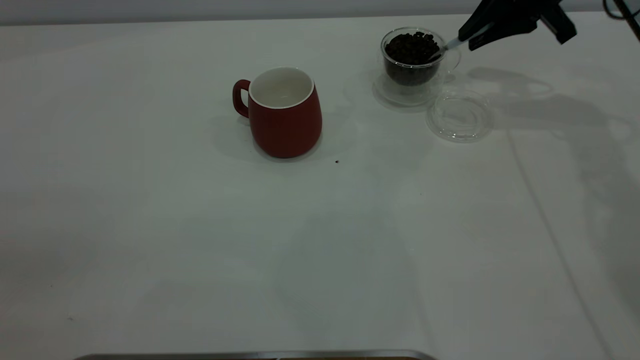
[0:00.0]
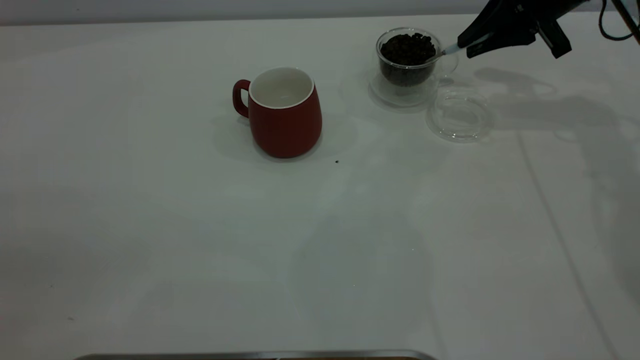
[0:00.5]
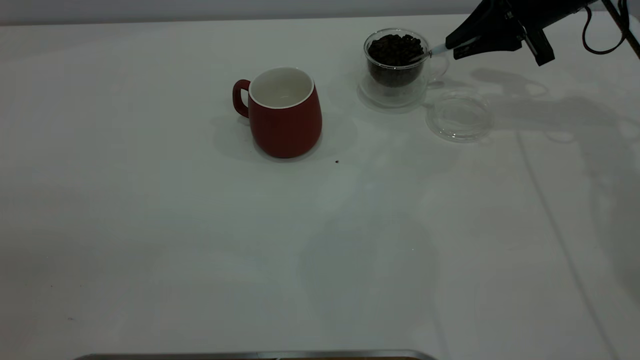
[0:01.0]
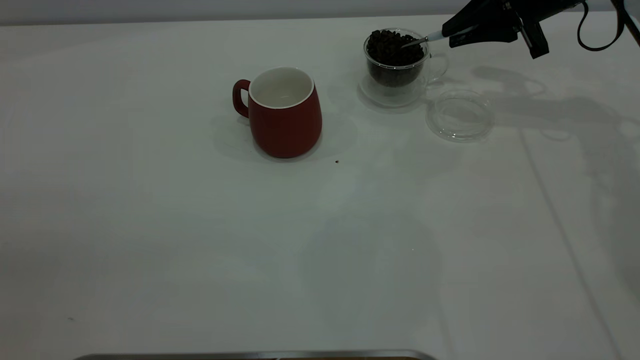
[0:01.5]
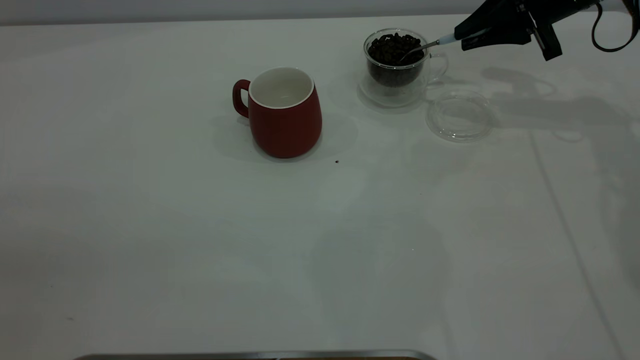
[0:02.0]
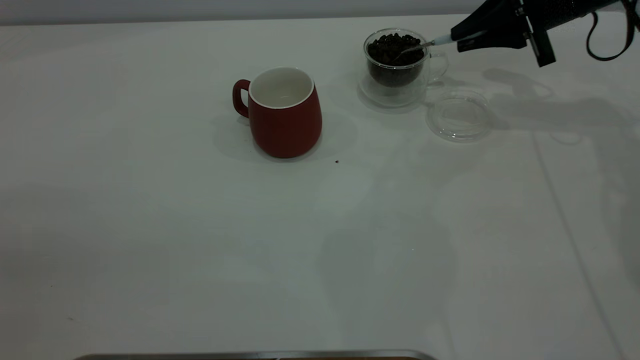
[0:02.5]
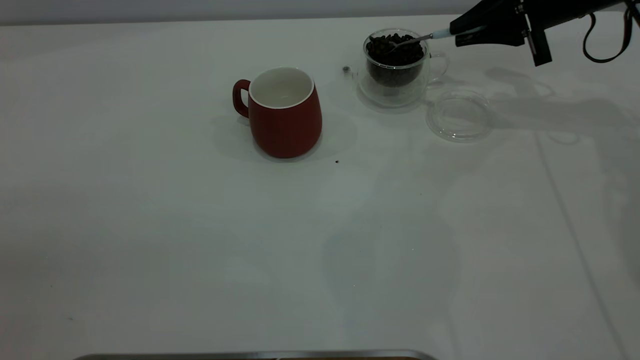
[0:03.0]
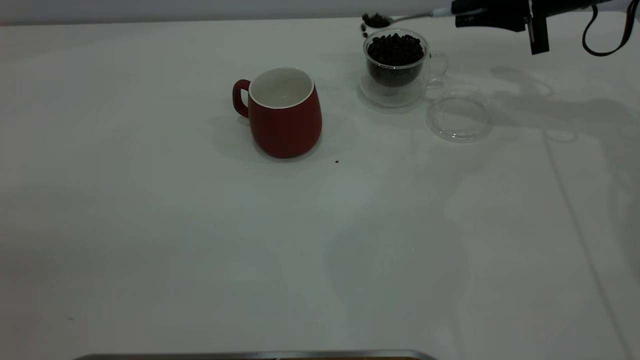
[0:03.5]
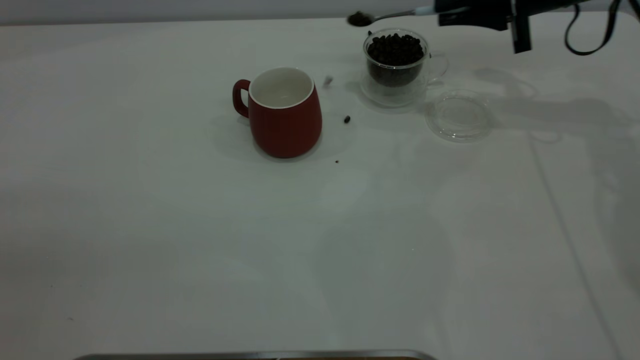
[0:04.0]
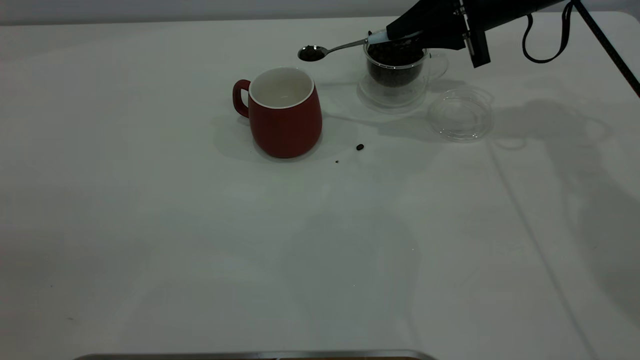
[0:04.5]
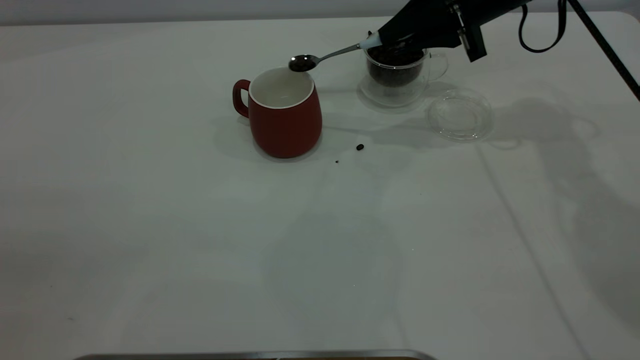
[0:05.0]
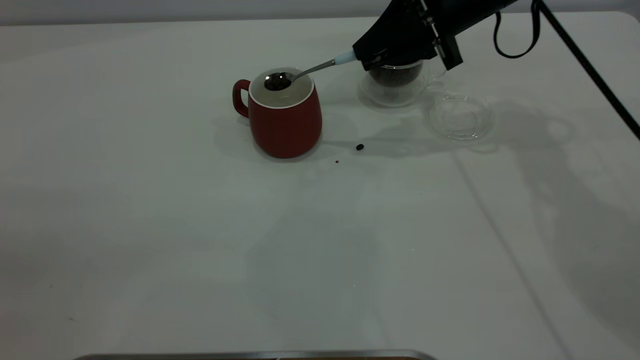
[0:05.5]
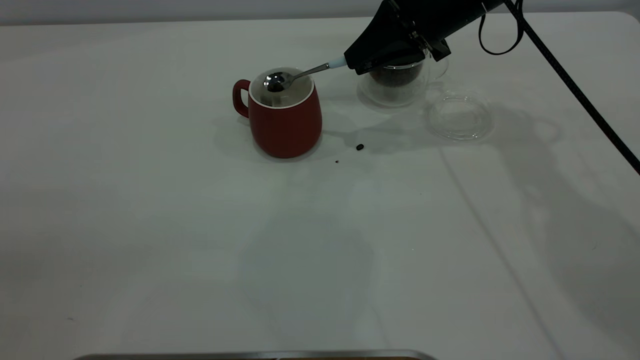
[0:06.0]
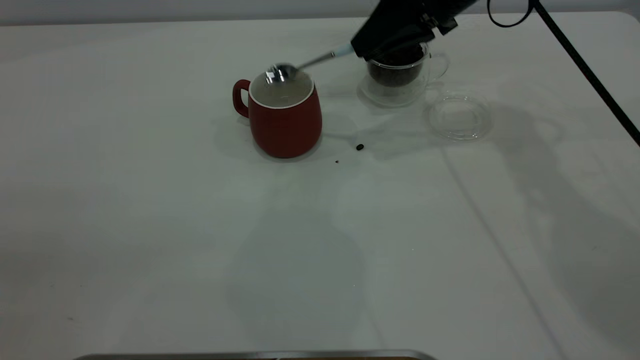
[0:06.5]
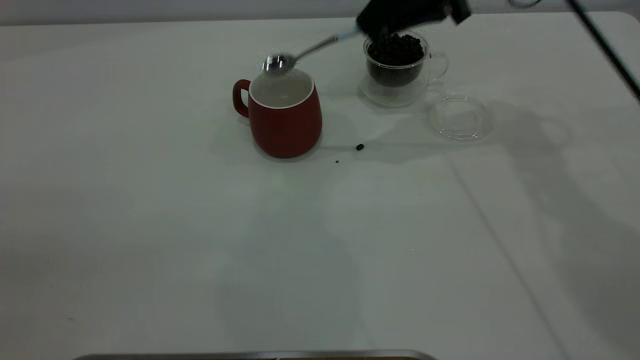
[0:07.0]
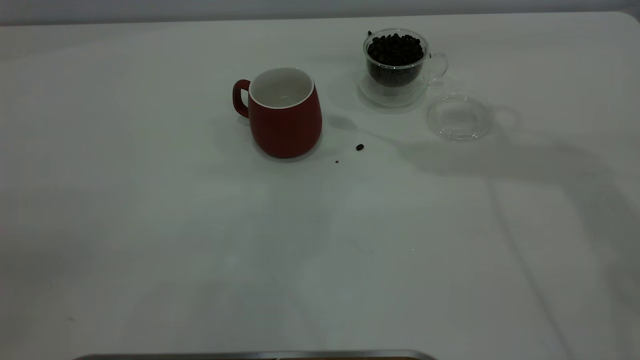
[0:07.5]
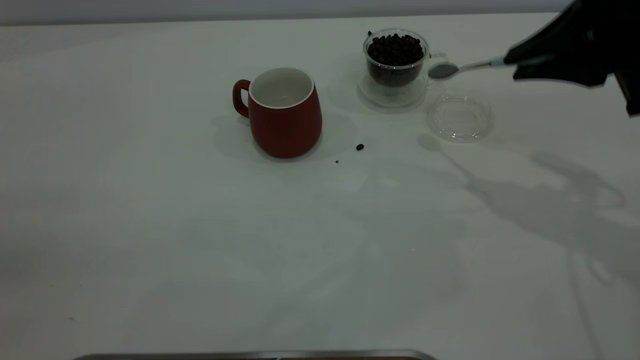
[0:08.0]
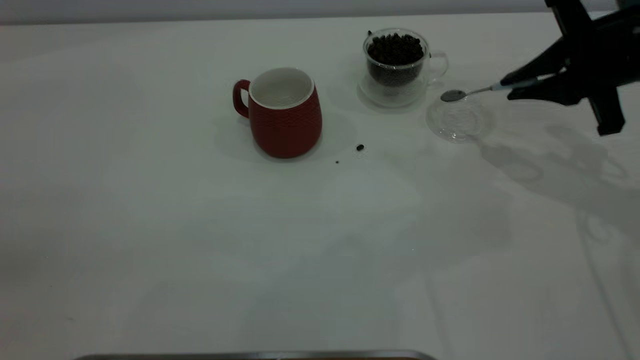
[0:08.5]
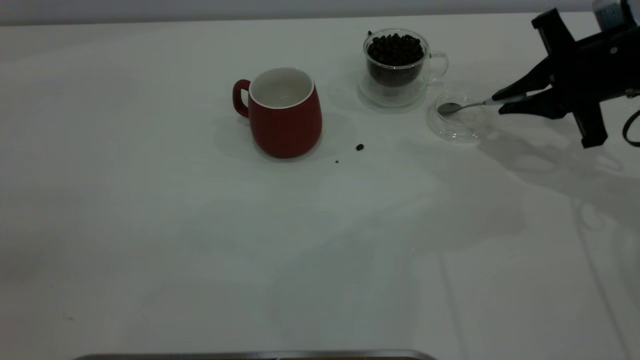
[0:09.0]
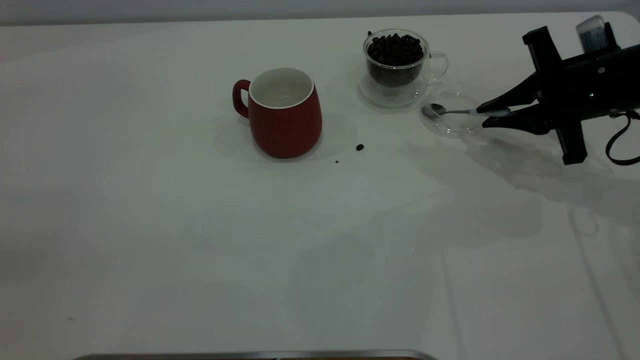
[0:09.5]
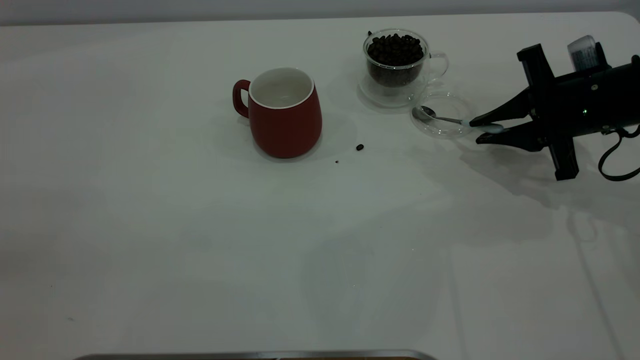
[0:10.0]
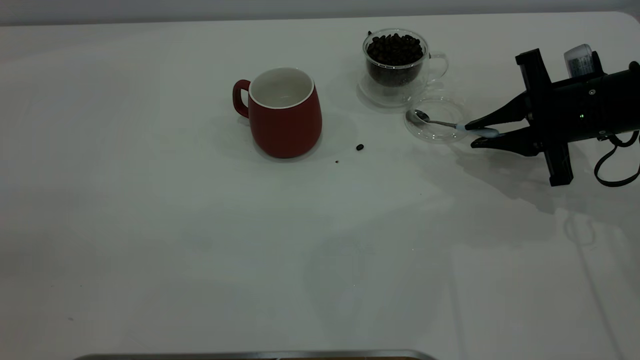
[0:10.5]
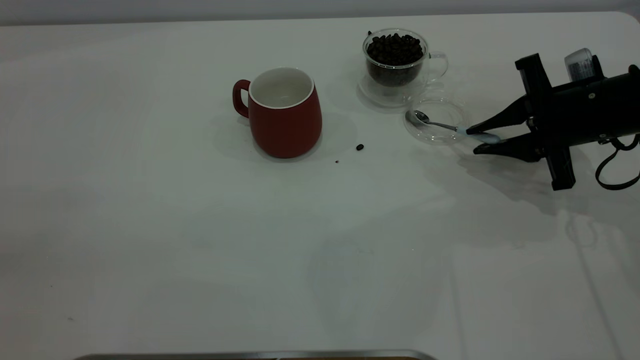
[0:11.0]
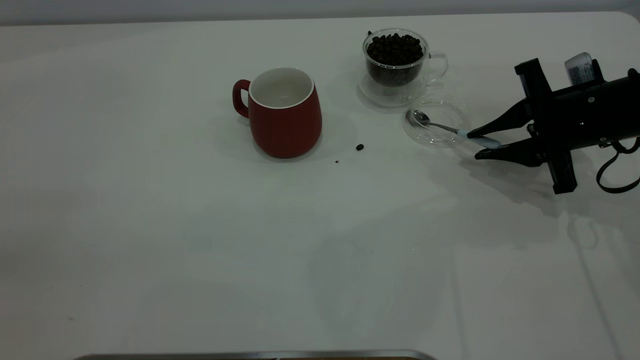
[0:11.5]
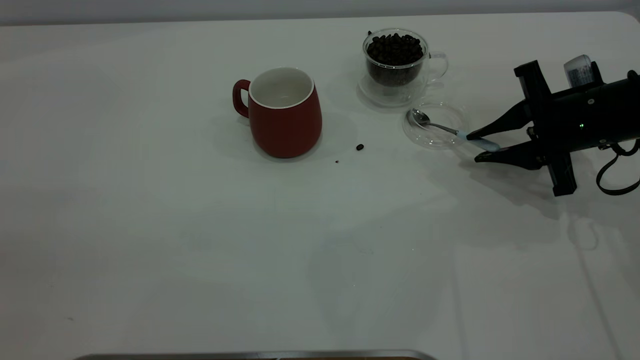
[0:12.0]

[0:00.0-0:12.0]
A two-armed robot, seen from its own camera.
Task of the whole recording: the left gripper place the red cup in the center of the table, the right gripper take the blue spoon from the cup lid and scoop out the coffee beans from the coffee cup and put them into the red cup, the right gripper put the spoon back into the cup lid.
Step, 0:00.0 to 0:06.5: Scoop a spoonful of beans into the cup.
0:00.0 to 0:02.0: The grippers move only a little.
0:02.0 to 0:04.0: The grippers stay close to where they were, moving slightly.
0:04.0 to 0:06.0: The right gripper is displaced to the left by roughly 10 cm.
0:06.0 to 0:08.0: The right gripper moves backward and to the right, approximately 20 cm.
0:08.0 to 0:10.0: The right gripper shifts about 15 cm downward and forward.
0:10.0 to 0:12.0: Neither gripper changes place.

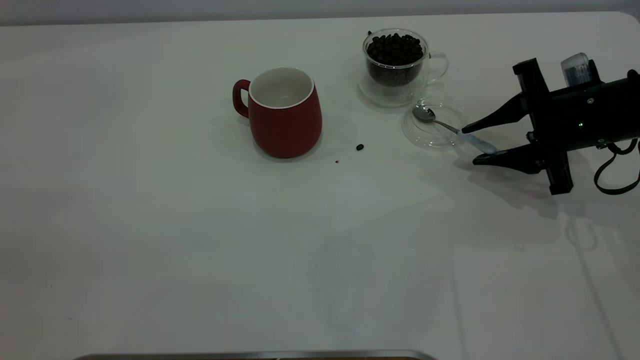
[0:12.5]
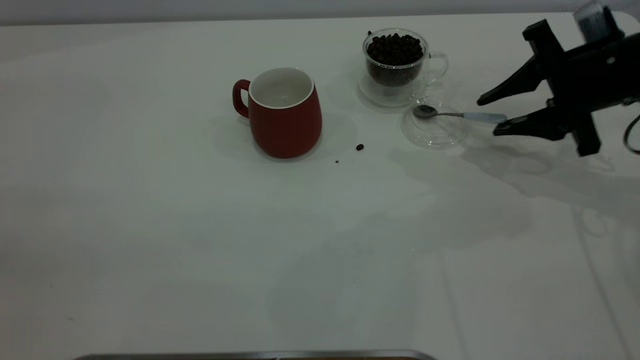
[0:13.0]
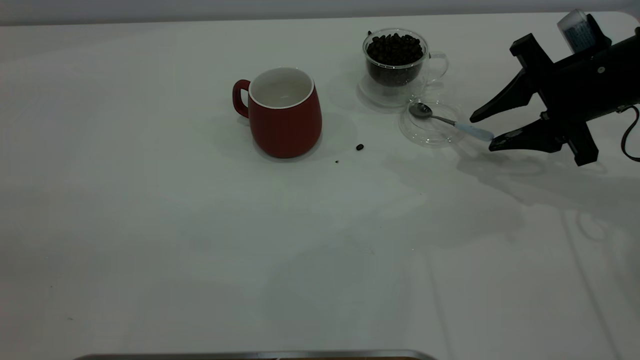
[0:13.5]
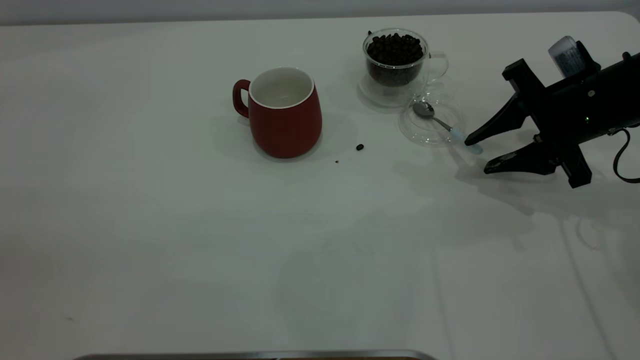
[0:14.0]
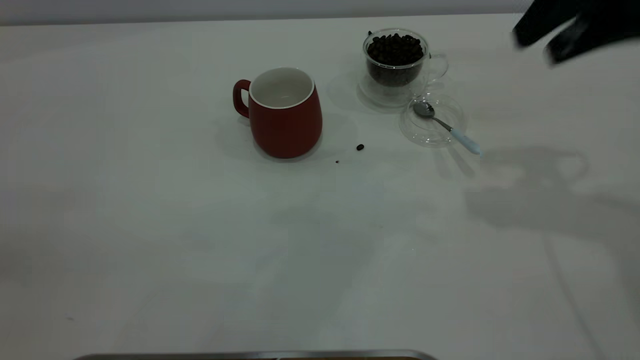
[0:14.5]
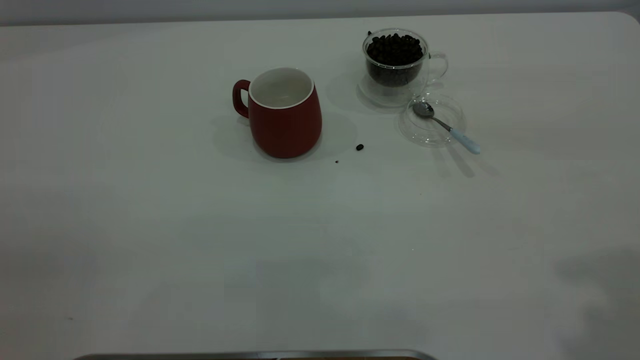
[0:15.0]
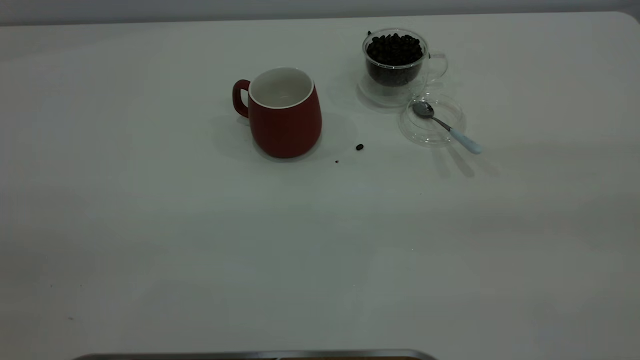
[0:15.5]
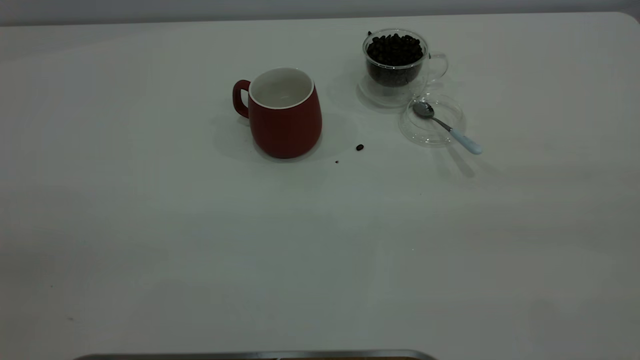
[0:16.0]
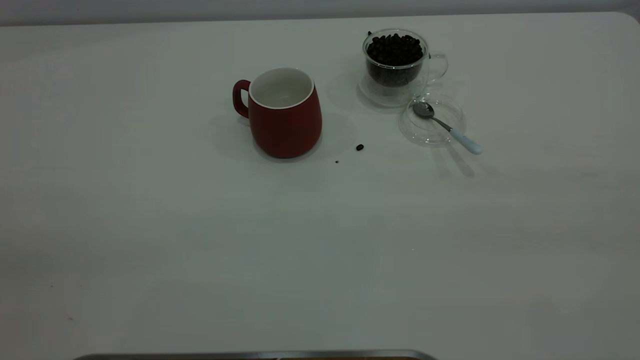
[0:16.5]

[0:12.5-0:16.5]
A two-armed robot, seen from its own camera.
Task of the whole recording: the left gripper place the red cup in the center of the table, the right gripper take the blue spoon from the cup lid and scoop out the coffee beans from the coffee cup and put them into the red cup, the right gripper put the spoon back into the cup lid.
0:12.5 to 0:14.5: The right gripper shifts some 20 cm upward.
0:14.5 to 0:16.5: The right gripper travels backward by about 30 cm.
